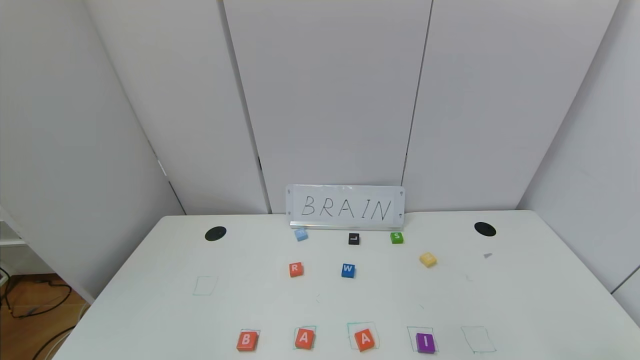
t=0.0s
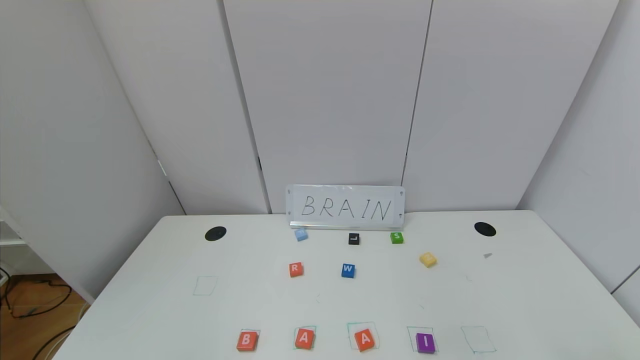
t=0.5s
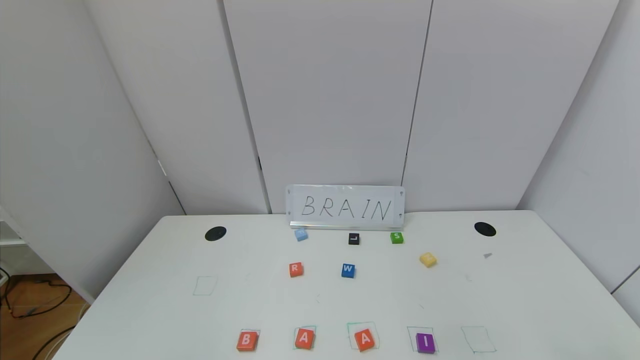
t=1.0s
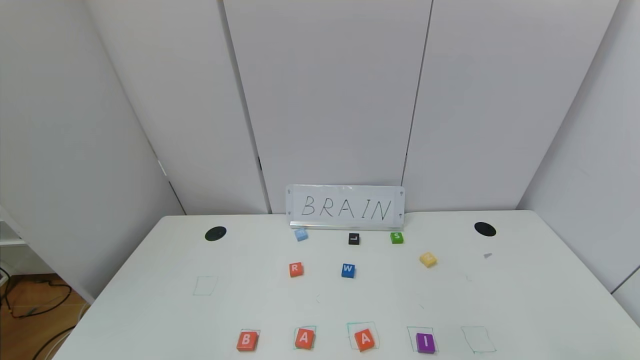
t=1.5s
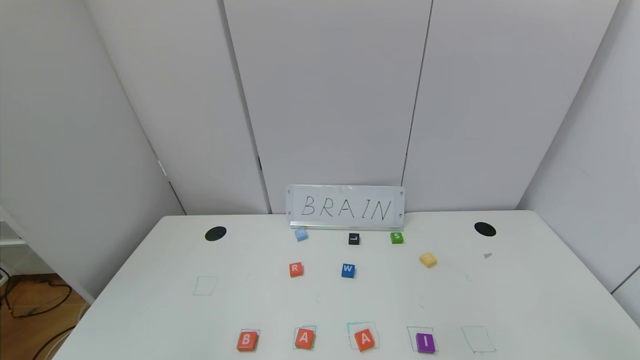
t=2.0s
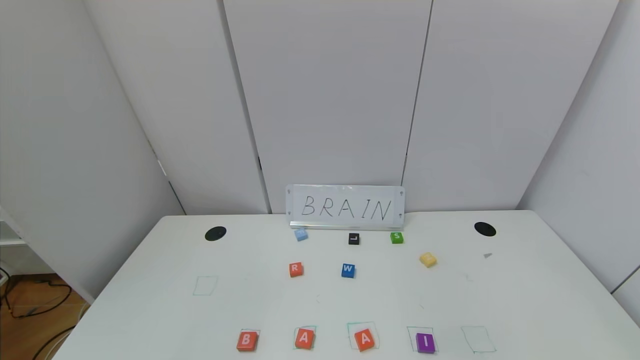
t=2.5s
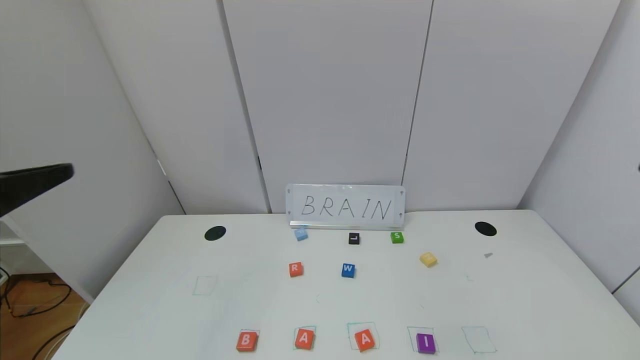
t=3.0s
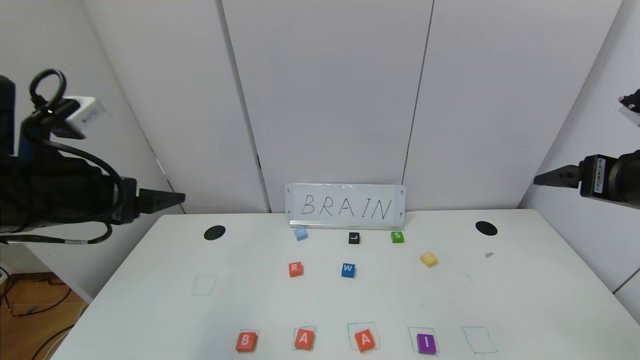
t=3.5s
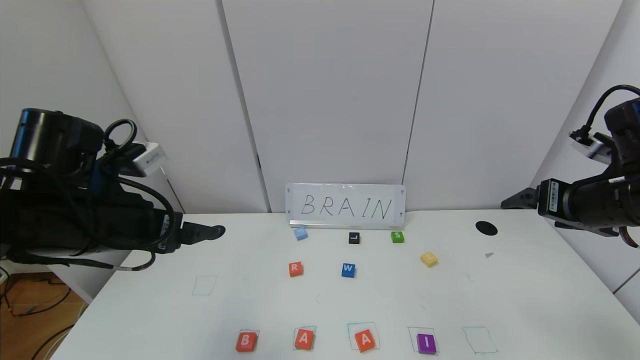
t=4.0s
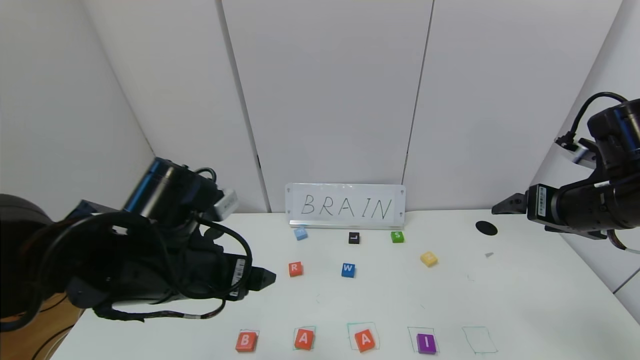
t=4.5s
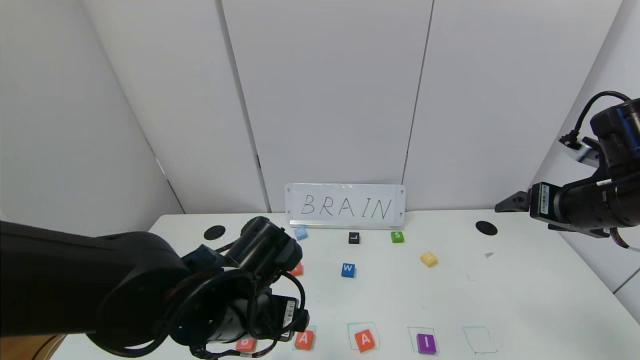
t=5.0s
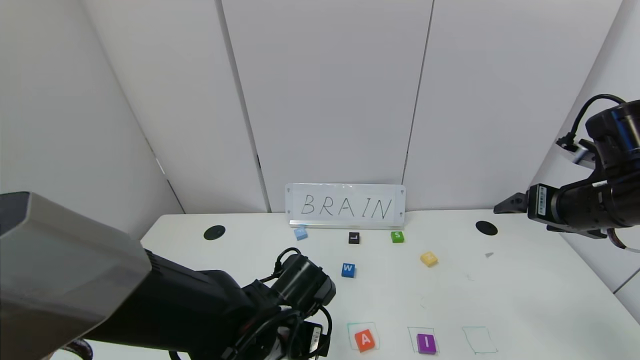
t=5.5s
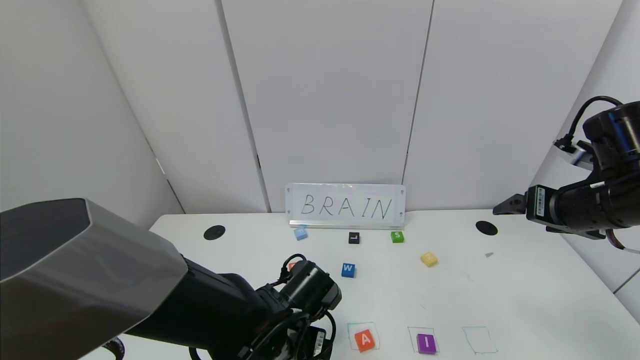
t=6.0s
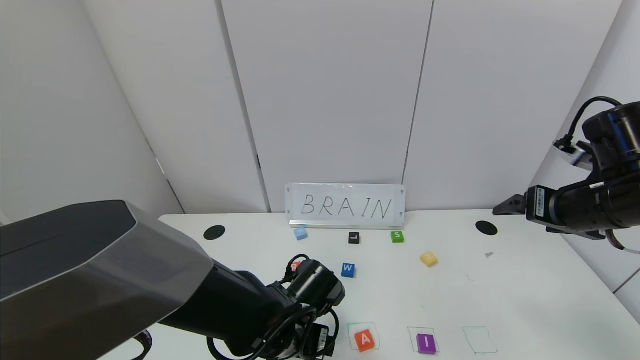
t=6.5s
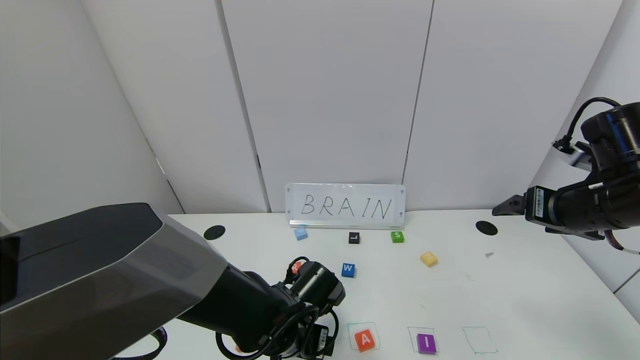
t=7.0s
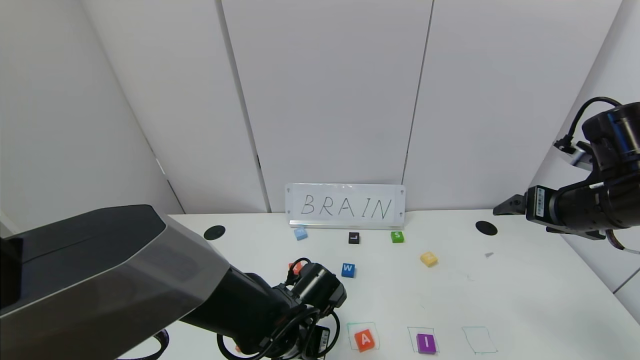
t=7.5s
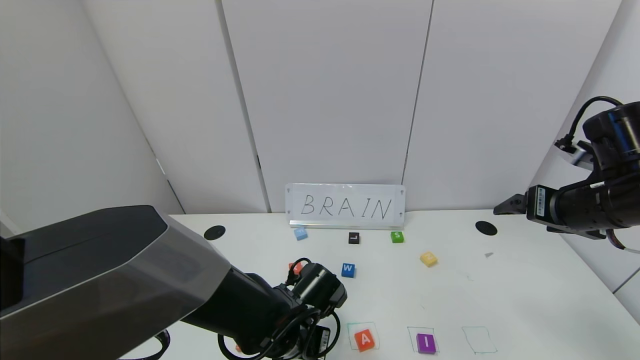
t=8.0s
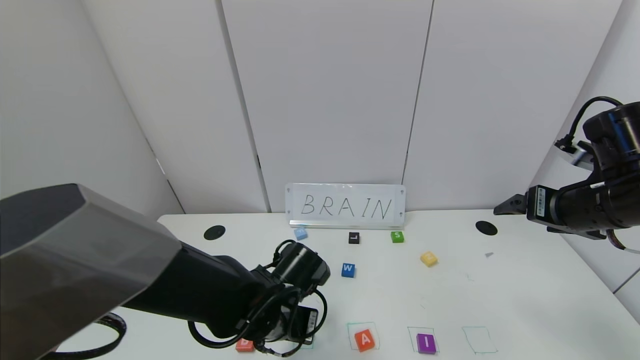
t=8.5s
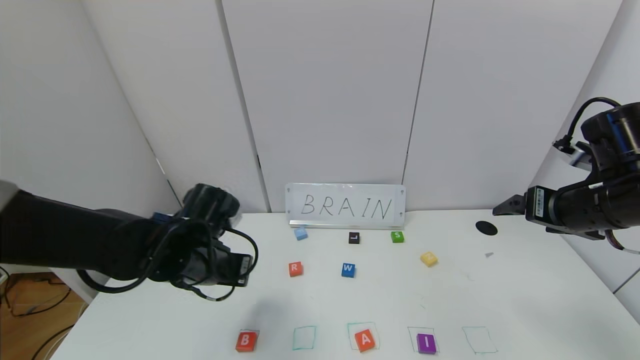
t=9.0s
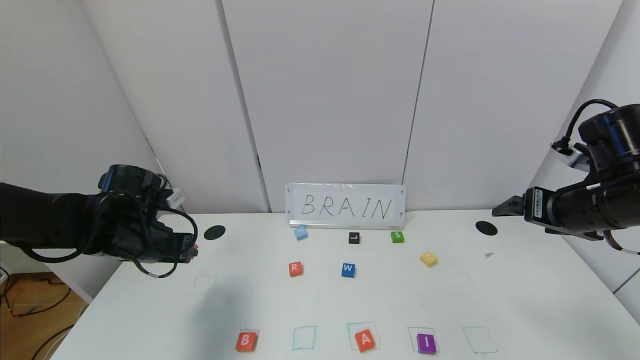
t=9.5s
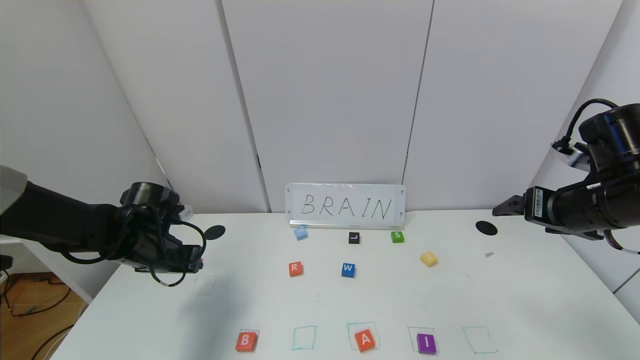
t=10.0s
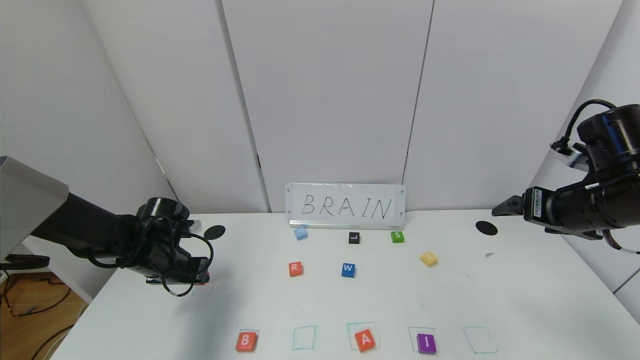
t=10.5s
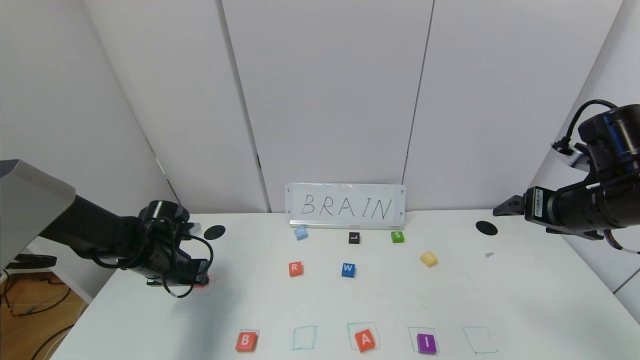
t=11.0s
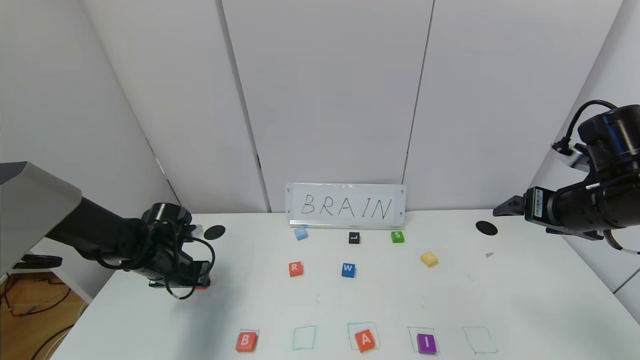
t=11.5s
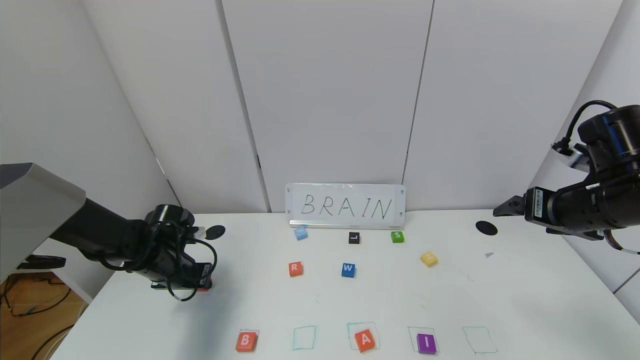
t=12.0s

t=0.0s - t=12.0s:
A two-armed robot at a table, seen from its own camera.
Task of the whole recording: use the gripper to find blocks with the letters b, a, a, and i on the table and arrange them into BAAI, then find r and N and turn the arranged baai into brian.
t=2.0s - t=4.0s: The grippers both shift forward by about 30 cm.
t=4.0s - t=6.0s: The left gripper travels to the right and downward by about 25 cm.
t=6.0s - t=8.0s: The left gripper closes its fingers.
t=8.0s - t=10.0s: The left gripper is displaced to the left and forward by about 25 cm.
t=10.0s - t=12.0s: The left gripper goes some 5 cm downward.

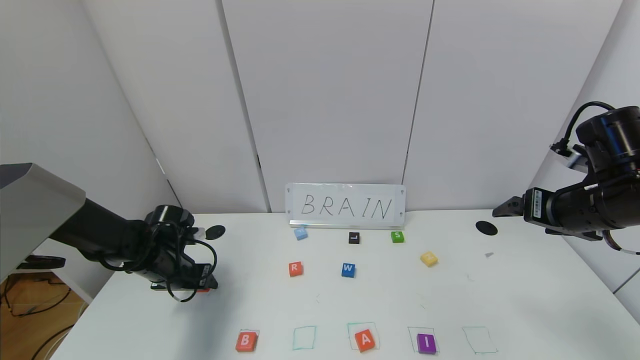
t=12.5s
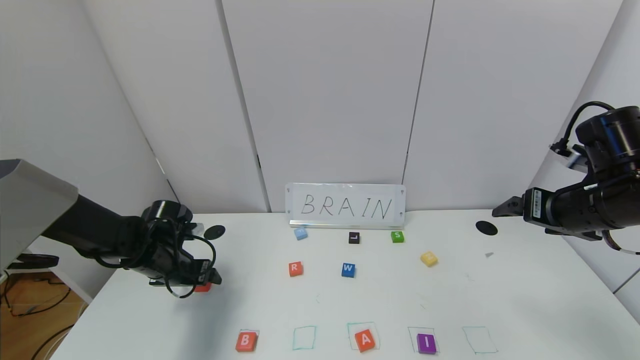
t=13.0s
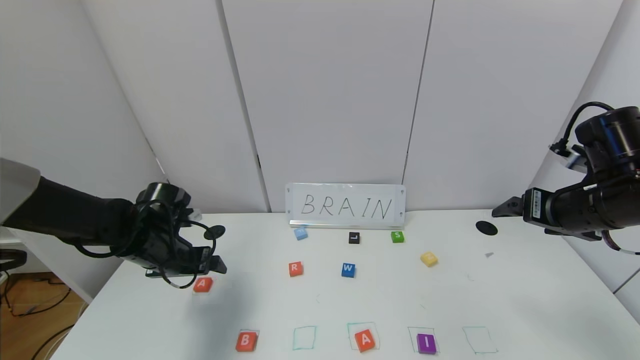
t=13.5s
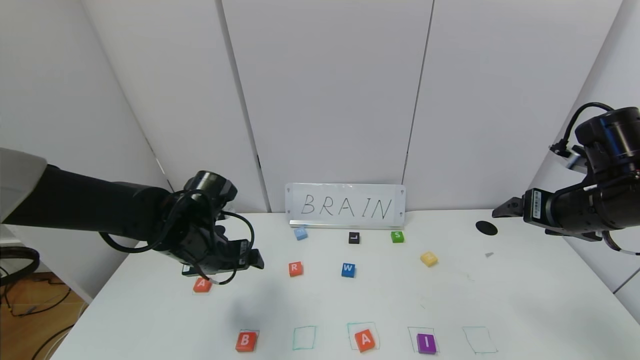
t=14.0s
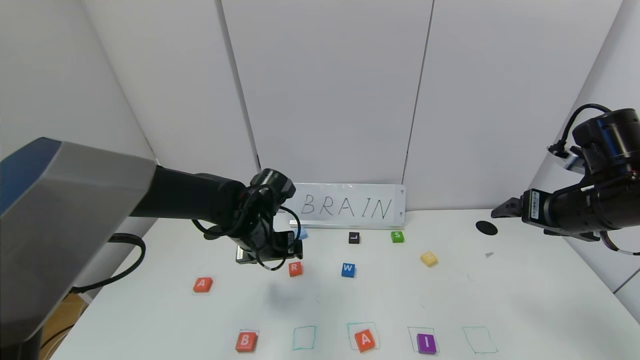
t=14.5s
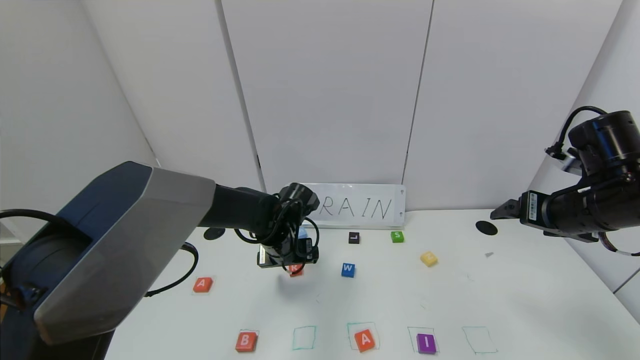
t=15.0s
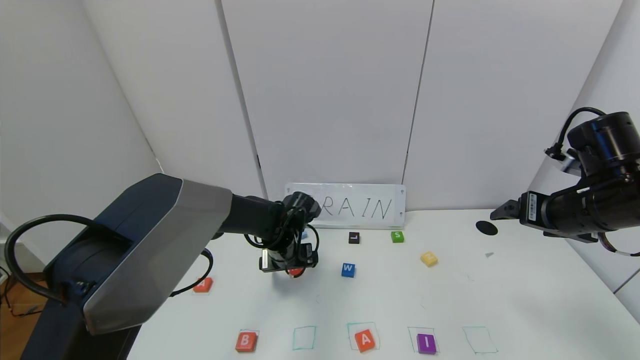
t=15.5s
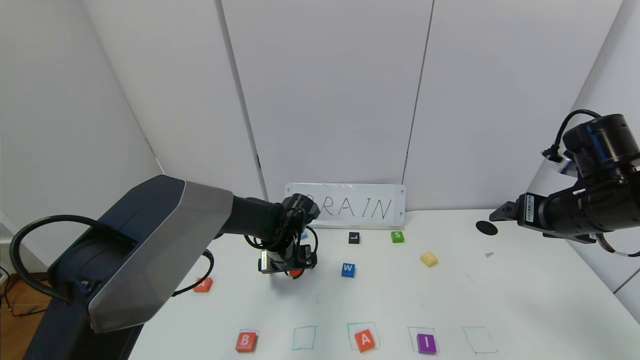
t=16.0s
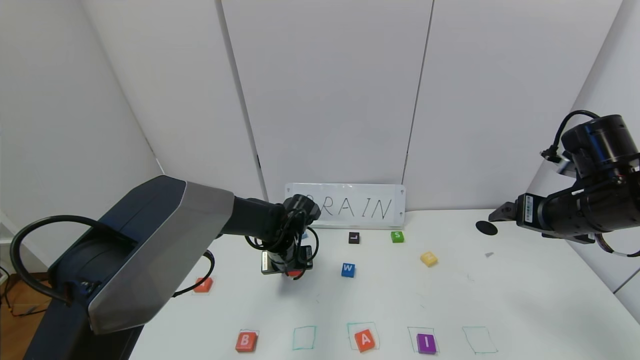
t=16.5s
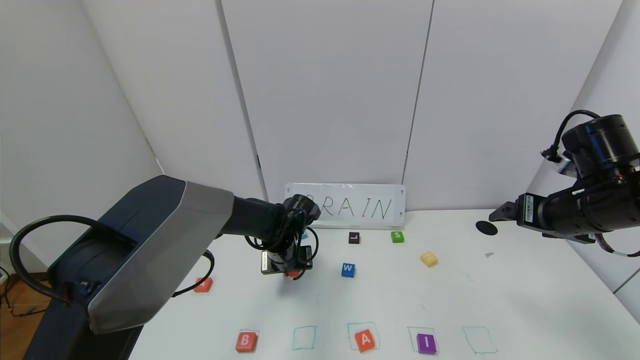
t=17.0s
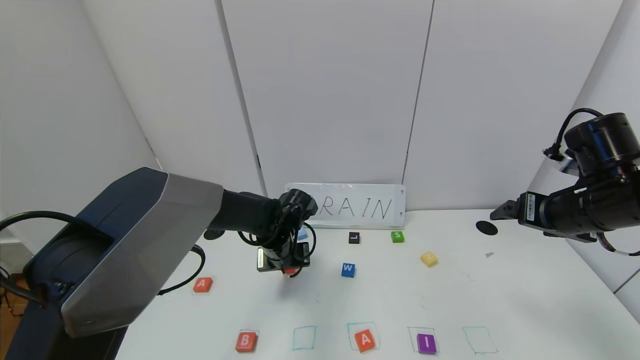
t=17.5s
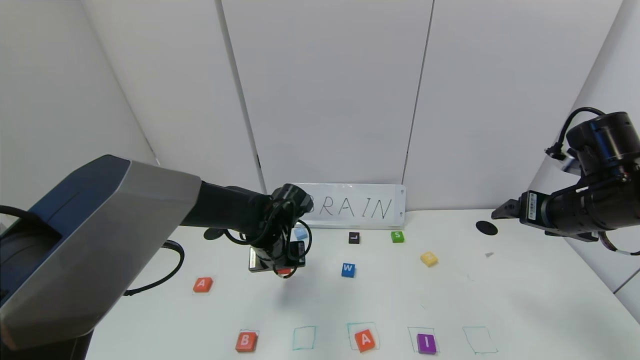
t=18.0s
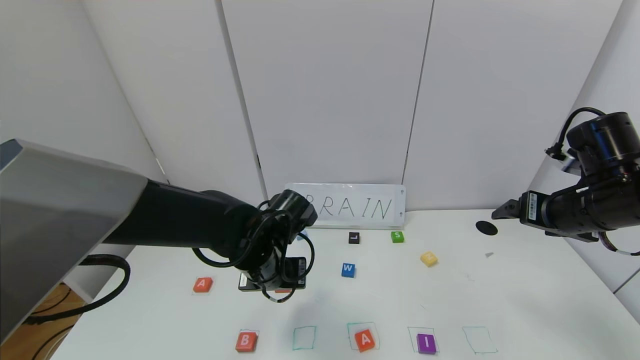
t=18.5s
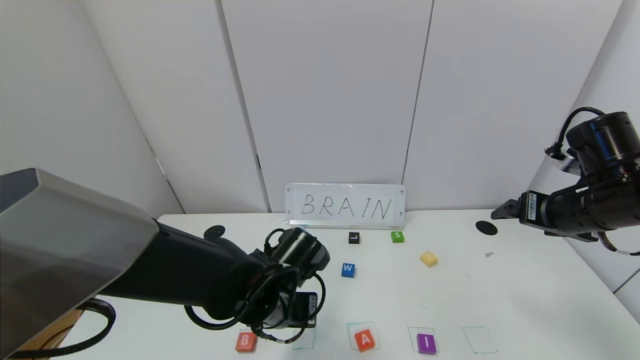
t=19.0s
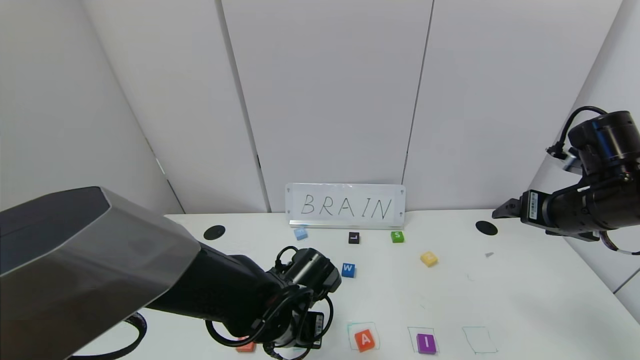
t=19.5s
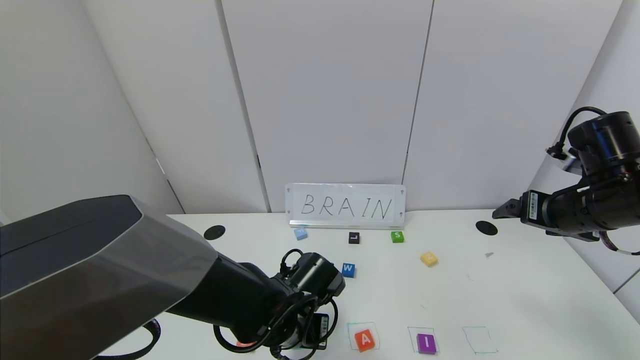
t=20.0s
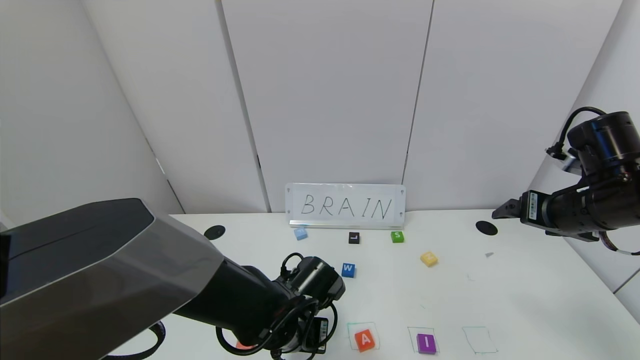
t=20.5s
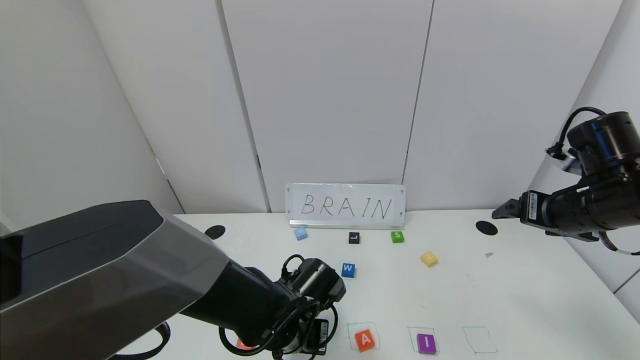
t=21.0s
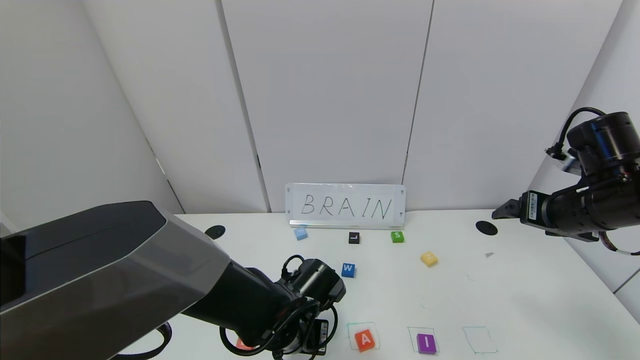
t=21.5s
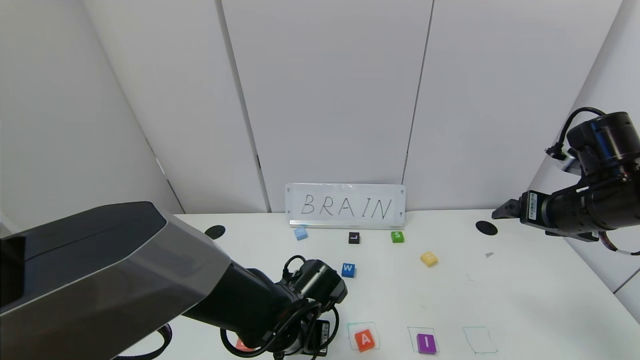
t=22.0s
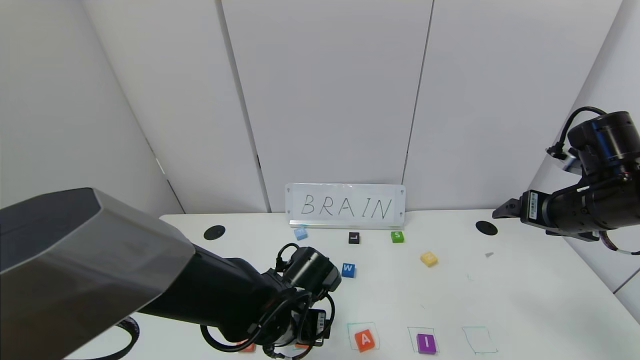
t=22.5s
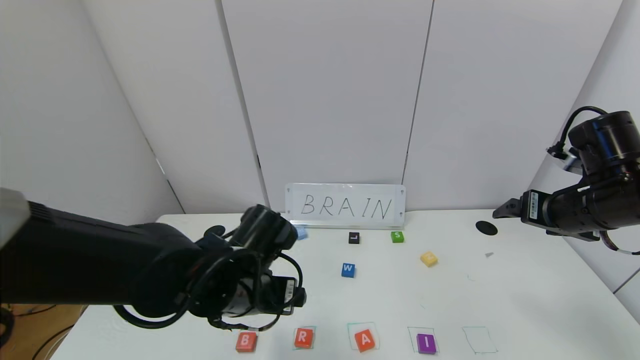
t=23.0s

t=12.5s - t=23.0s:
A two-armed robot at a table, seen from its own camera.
Task of the whole recording: use the gripper to find blocks with the letters b, a, a, and i on the table and arrange them into BAAI, then find r and N and turn the arranged baai into brian.
Step, t=13.5s - t=21.5s: Place the block R in the second location.
t=12.5s - t=14.5s: The left gripper moves to the right, roughly 20 cm, and opens.
t=14.5s - t=16.5s: The left gripper is displaced downward by approximately 5 cm, and closes.
t=16.5s - t=19.0s: The left gripper moves backward, approximately 15 cm.
t=19.0s - t=21.0s: The left gripper changes place by roughly 5 cm.
t=21.0s - t=23.0s: The left gripper shifts roughly 10 cm upward and to the left, and opens.
